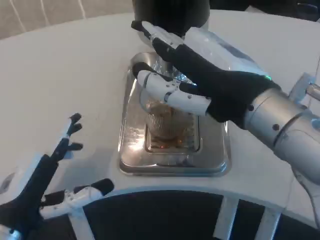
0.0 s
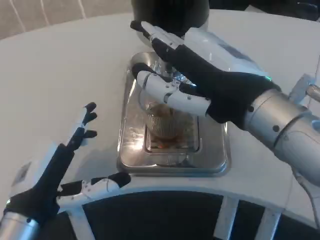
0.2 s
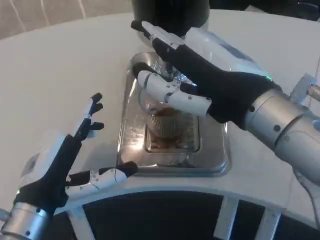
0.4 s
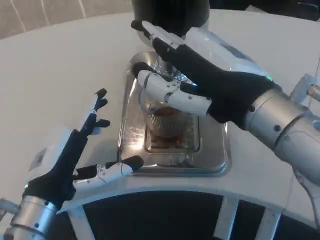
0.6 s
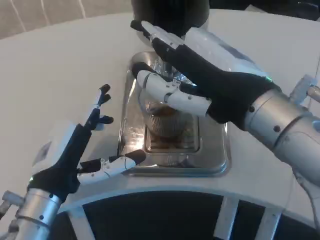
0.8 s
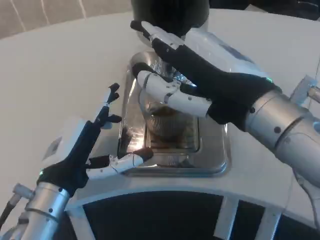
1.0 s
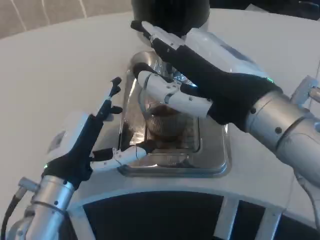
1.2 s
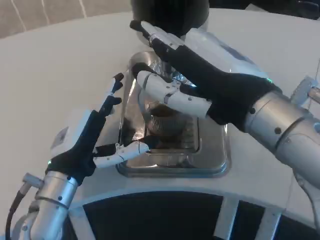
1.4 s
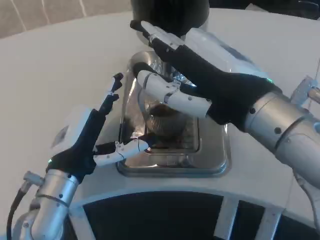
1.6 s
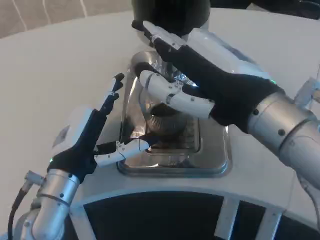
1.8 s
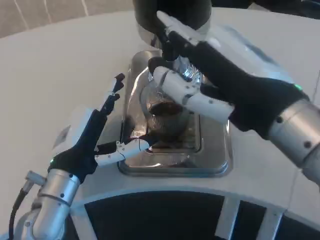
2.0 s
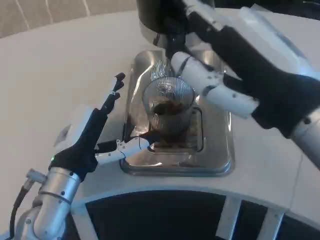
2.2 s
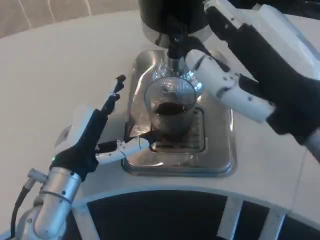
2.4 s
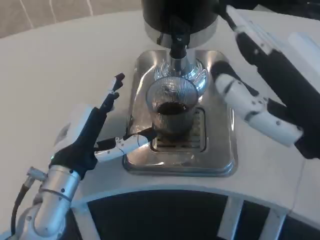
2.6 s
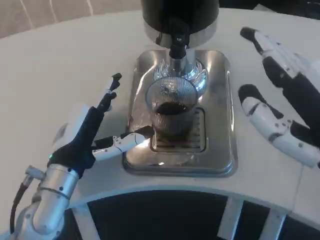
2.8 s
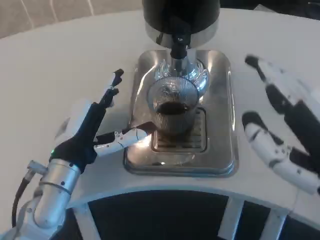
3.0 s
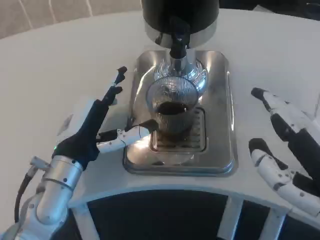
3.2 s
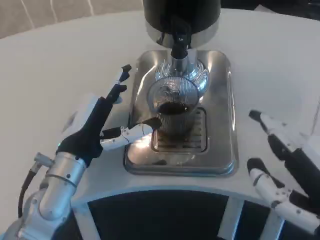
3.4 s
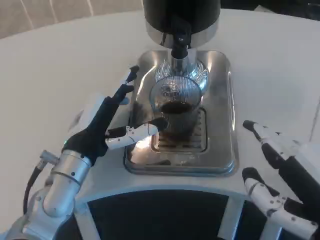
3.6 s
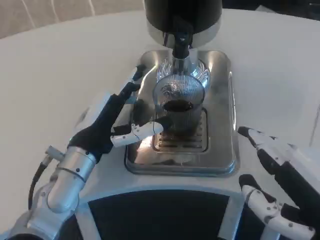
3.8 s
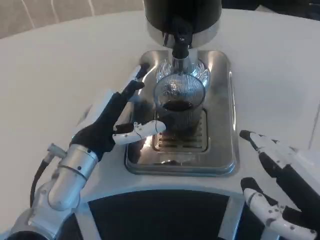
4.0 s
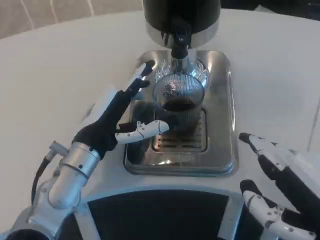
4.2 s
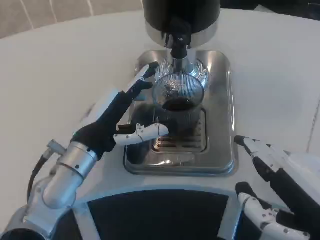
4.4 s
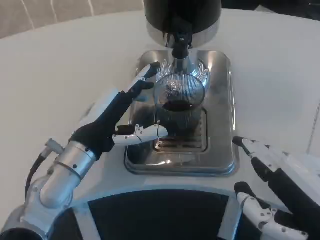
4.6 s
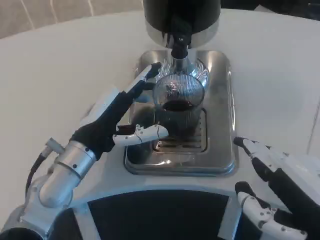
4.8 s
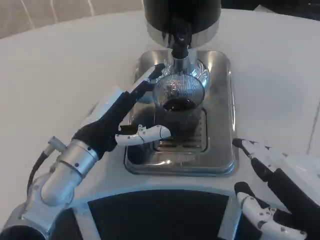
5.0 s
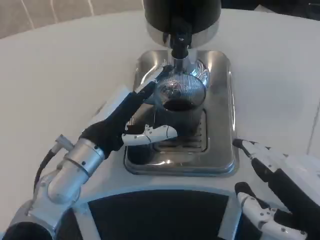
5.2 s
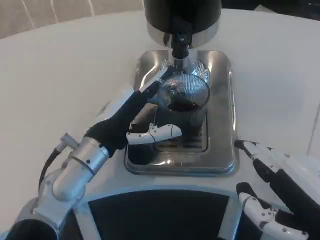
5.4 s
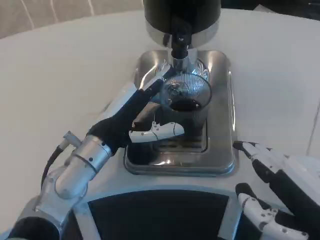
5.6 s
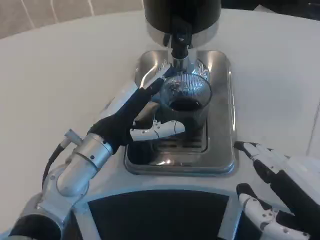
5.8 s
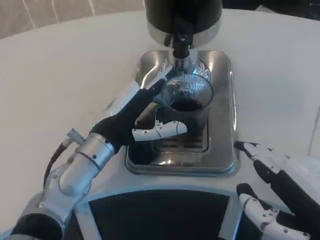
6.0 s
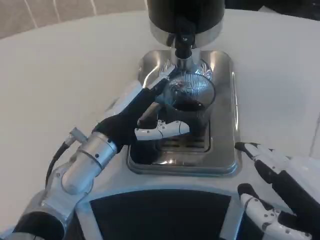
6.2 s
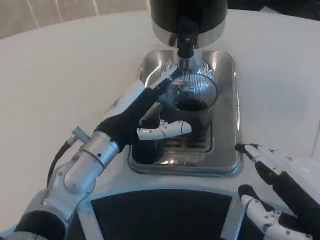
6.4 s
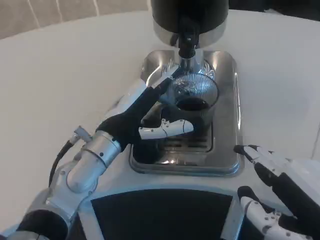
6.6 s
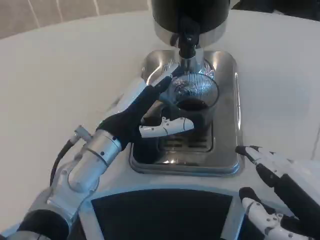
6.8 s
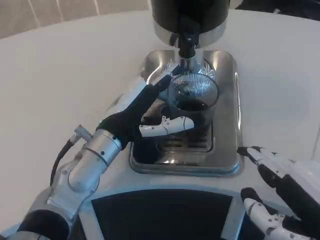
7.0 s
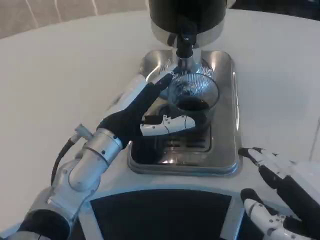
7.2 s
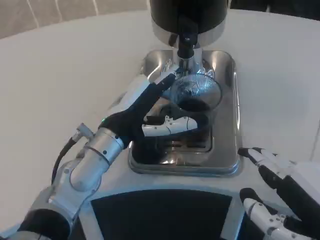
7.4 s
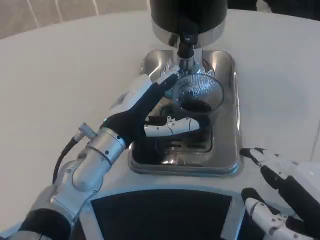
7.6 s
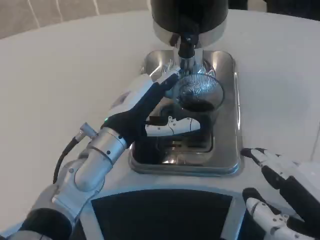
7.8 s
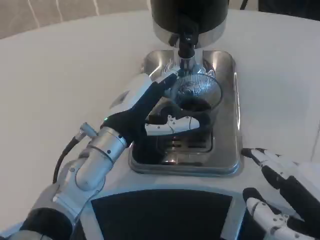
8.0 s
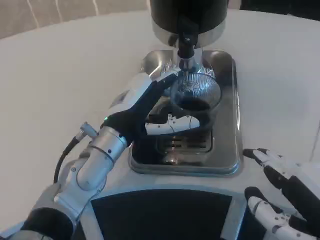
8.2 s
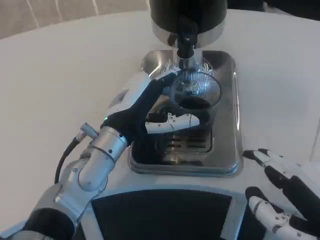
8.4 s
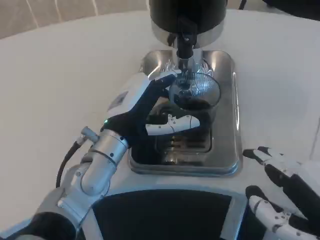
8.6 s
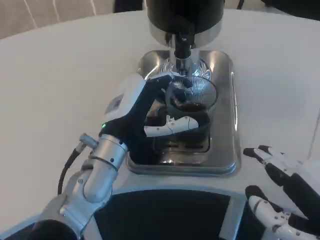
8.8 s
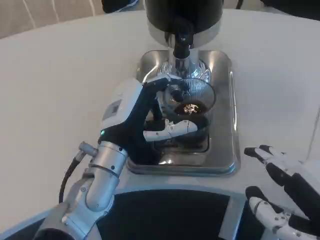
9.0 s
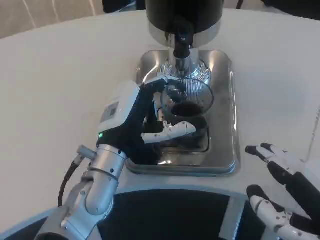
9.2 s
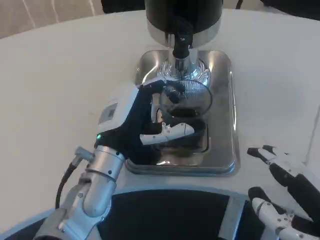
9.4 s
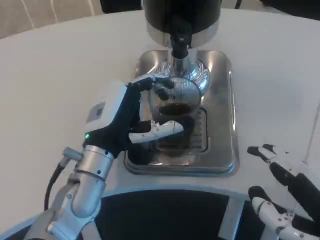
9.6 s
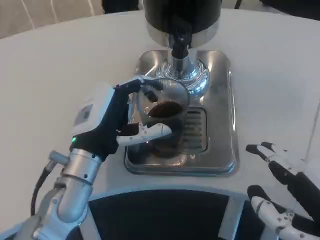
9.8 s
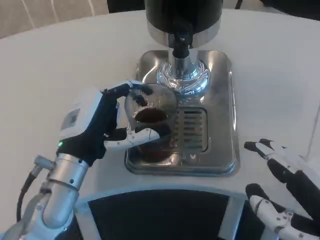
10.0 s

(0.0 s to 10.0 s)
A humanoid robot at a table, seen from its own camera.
Task of the whole recording: Grasp the cup under the faucet to collect the drink, then remove the cup.
0.0 s - 1.4 s: The left hand travels forward and to the right by roughly 10 cm.
1.4 s - 2.8 s: The right hand shifts approximately 10 cm to the right and backward.
2.8 s - 4.2 s: The right hand changes place by some 5 cm.
4.2 s - 8.6 s: The hands move only a little.
8.6 s - 10.0 s: The left hand shifts by approximately 5 cm.

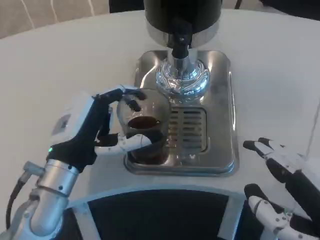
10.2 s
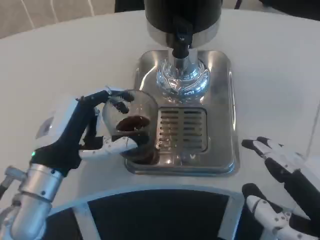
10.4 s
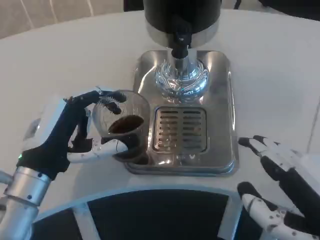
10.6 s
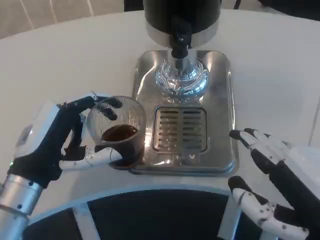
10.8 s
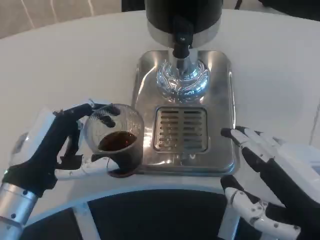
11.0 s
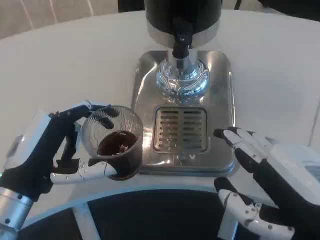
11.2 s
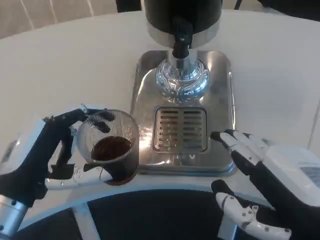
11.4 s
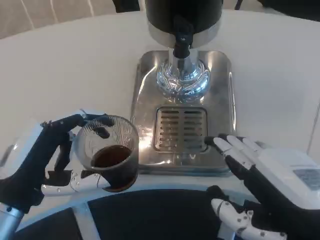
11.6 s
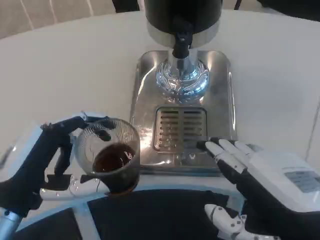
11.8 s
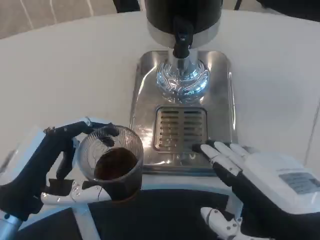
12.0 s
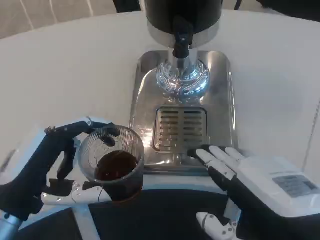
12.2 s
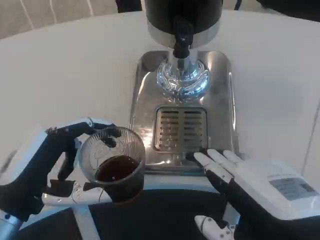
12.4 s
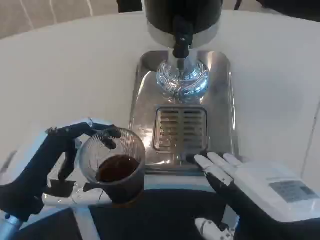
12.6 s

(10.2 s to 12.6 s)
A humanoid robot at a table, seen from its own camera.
Task of the whole recording: Grasp the cup under the faucet to collect the drink, then remove the cup.
10.2 s - 11.4 s: The left hand is displaced backward by roughly 5 cm.

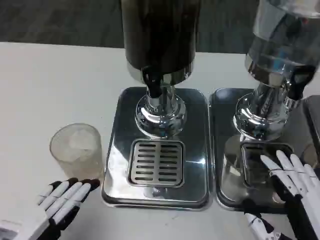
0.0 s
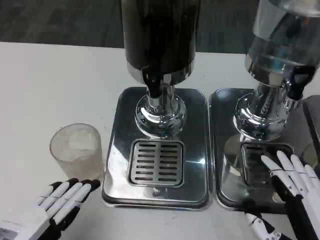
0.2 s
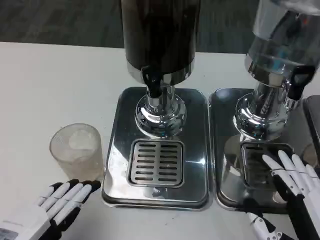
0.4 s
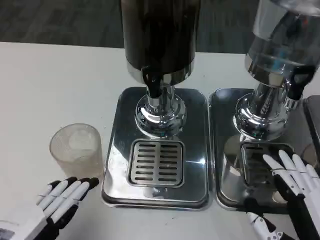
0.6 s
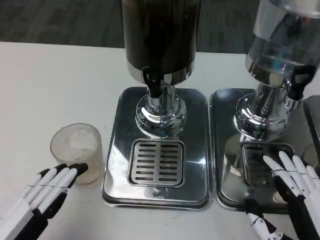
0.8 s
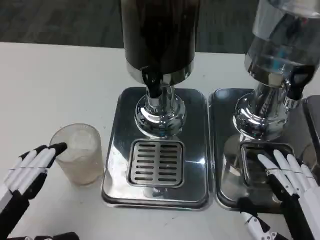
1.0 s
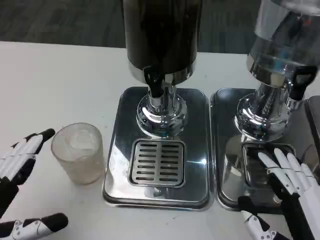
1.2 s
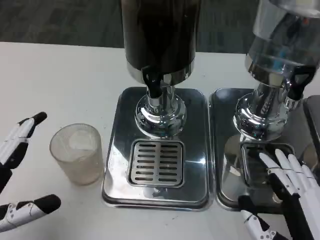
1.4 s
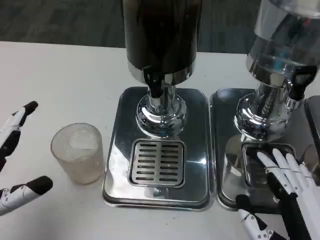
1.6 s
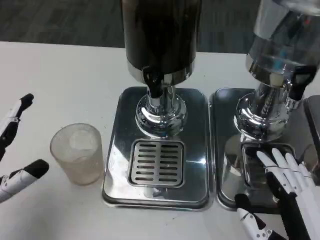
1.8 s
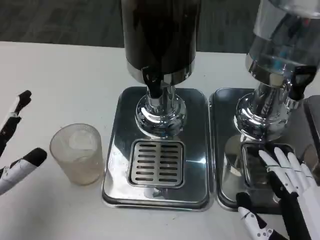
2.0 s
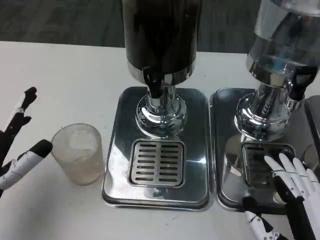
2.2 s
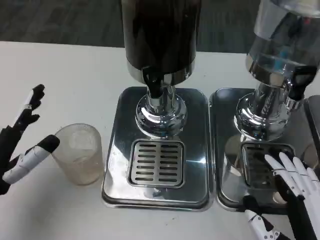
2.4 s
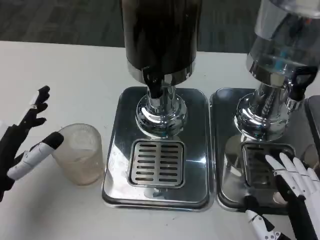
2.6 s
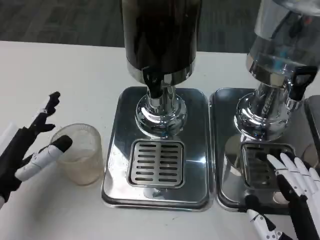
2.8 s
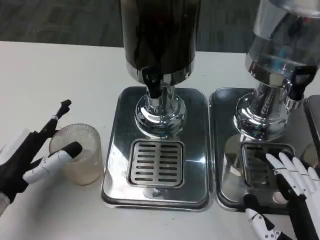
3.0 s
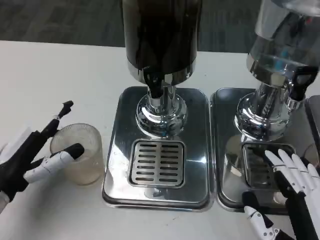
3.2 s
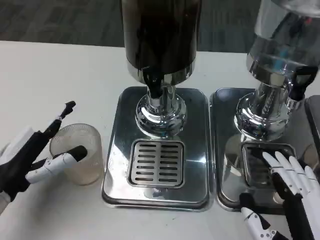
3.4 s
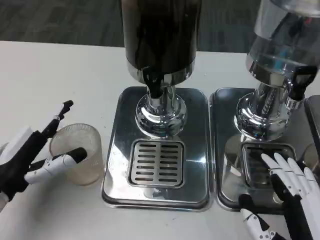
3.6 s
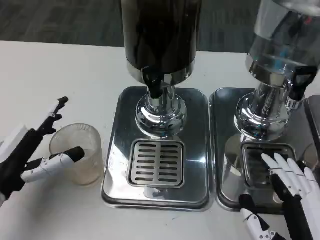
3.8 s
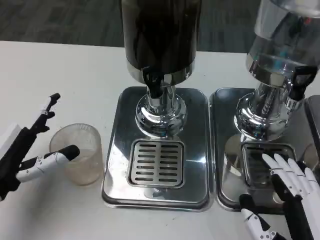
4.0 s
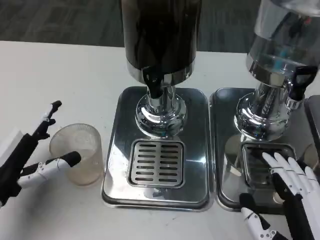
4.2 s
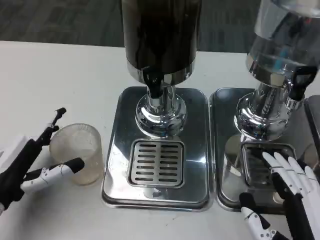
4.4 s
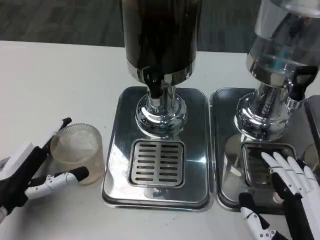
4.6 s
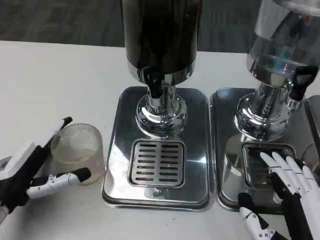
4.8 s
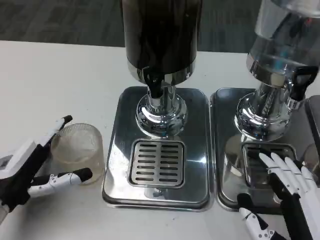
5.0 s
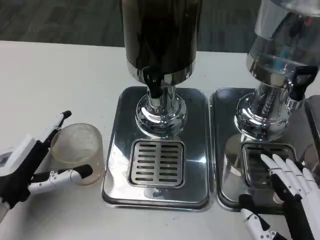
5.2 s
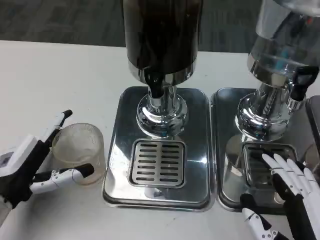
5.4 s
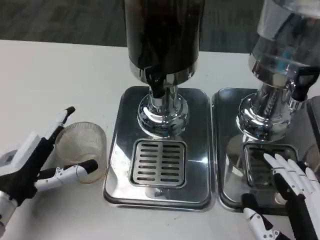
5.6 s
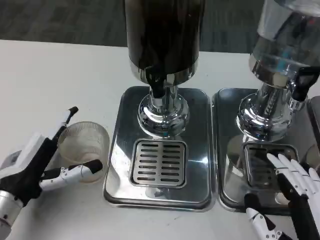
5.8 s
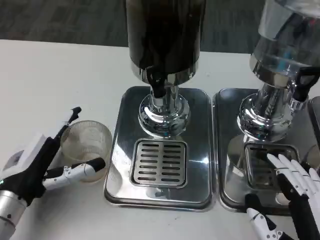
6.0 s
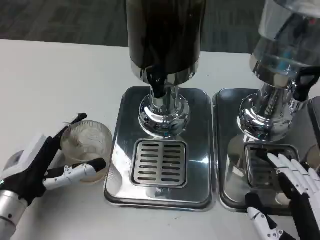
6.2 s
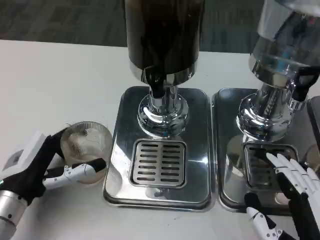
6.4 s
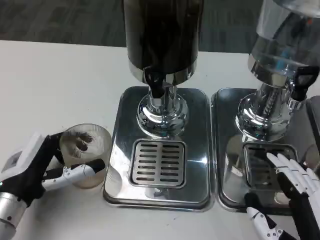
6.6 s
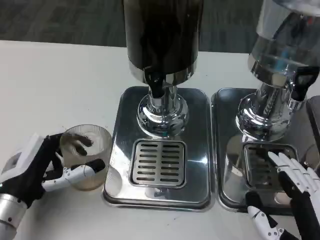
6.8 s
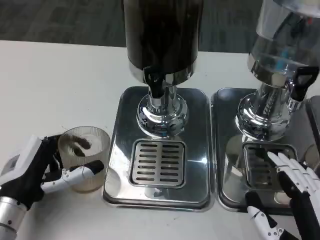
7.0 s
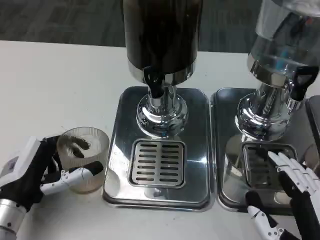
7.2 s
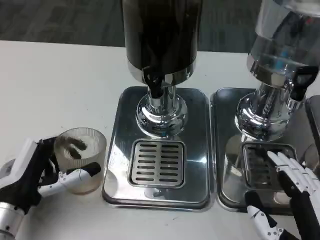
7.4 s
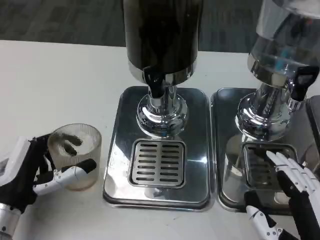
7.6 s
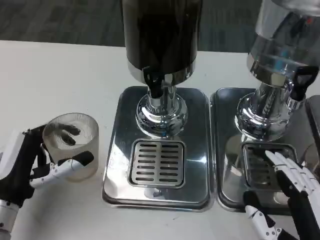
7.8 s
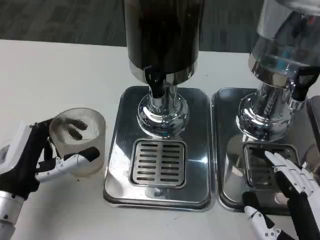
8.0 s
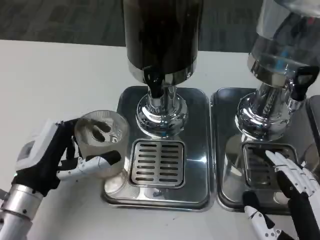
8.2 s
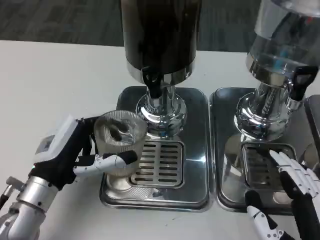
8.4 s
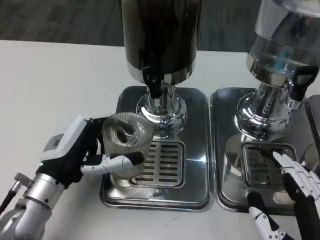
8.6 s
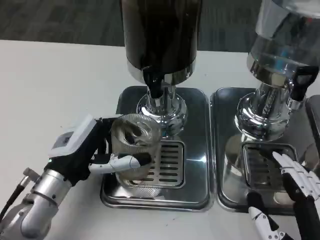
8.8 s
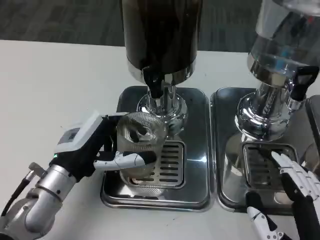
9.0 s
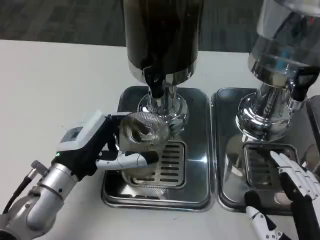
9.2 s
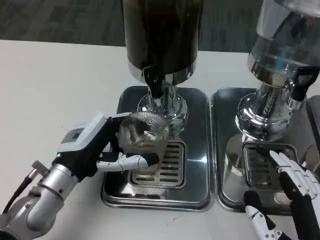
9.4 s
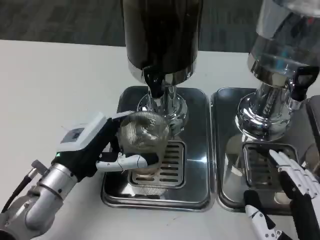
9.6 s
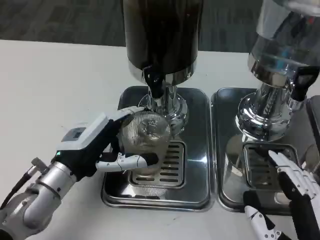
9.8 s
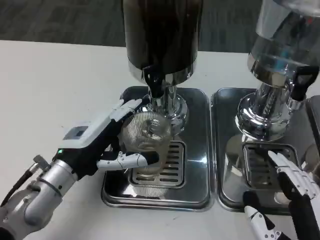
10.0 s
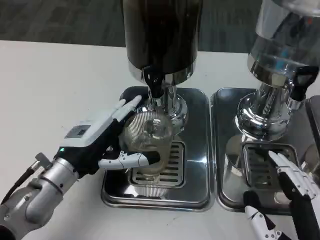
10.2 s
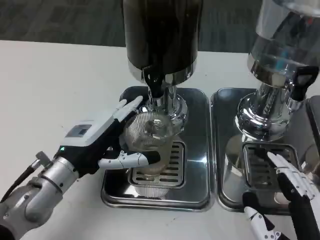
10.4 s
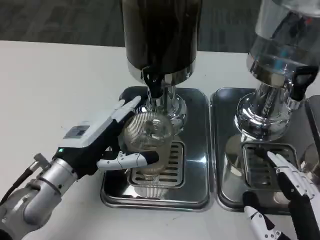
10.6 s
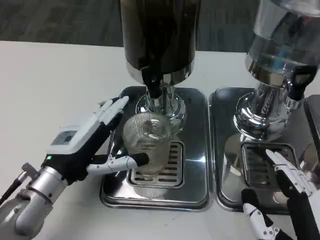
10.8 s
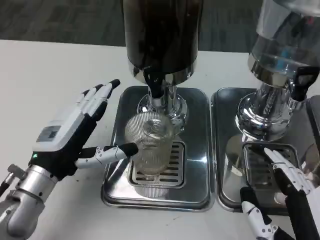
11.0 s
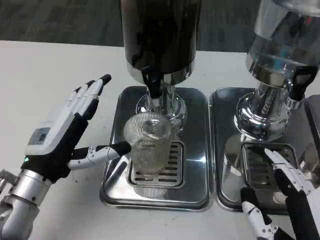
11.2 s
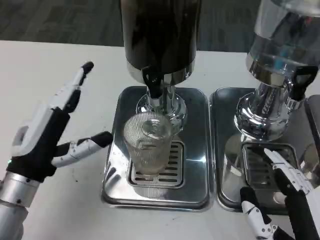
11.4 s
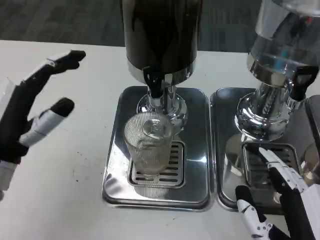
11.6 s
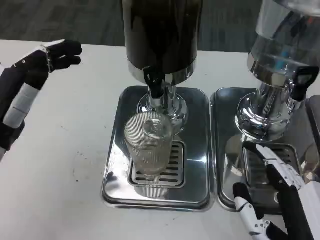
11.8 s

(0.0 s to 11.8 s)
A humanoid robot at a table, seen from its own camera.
Task of the whole recording: Grasp the cup under the faucet to collect the drink, then remove the cup.
0.0 s - 1.4 s: The left hand moves approximately 5 cm.
1.4 s - 3.0 s: The left hand goes roughly 10 cm forward.
3.0 s - 4.4 s: The hands move only a little.
6.0 s - 7.4 s: The hands move only a little.
7.4 s - 8.8 s: The left hand travels to the right and forward by about 5 cm.
8.8 s - 10.4 s: There are only small adjustments of the hands.
10.4 s - 11.8 s: The left hand moves to the left and upward, about 10 cm.
